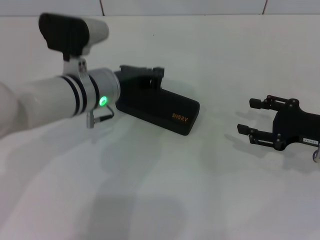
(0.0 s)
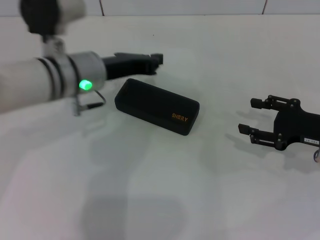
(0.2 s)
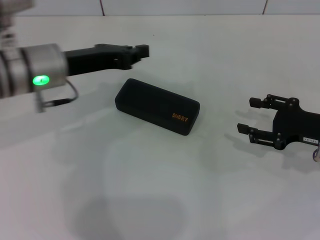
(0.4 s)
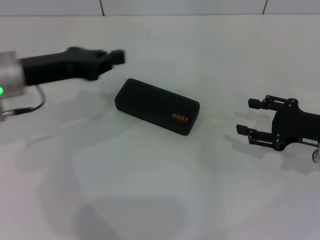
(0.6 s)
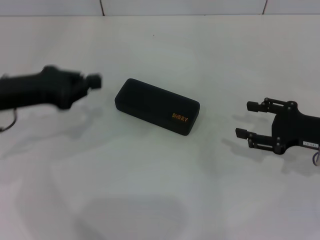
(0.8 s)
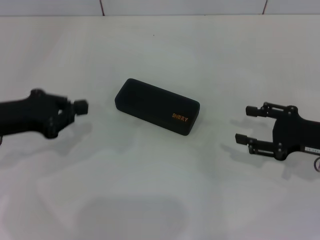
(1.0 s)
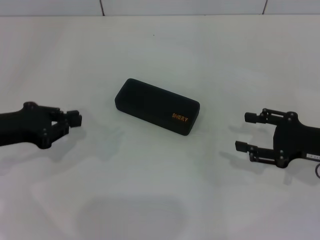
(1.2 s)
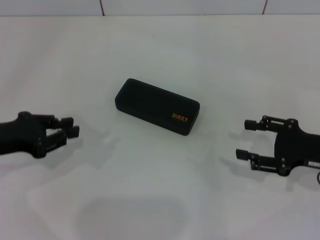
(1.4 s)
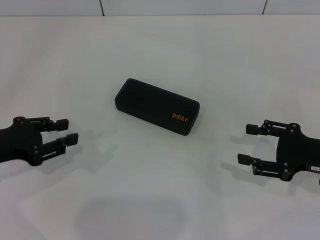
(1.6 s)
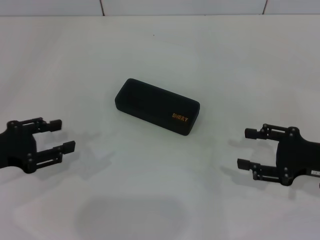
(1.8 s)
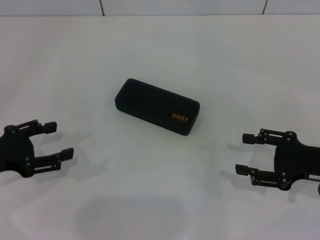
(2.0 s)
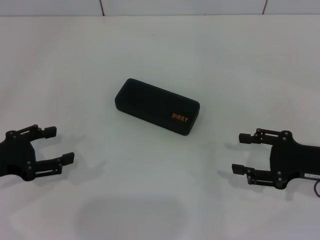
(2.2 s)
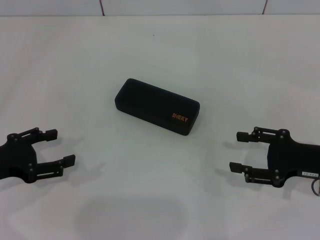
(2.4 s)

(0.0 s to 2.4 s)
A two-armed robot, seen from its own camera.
0.0 s - 1.2 s: The left gripper goes roughly 20 cm to the left and backward.
1.2 s - 2.4 s: The left gripper shifts by approximately 5 cm, and opens.

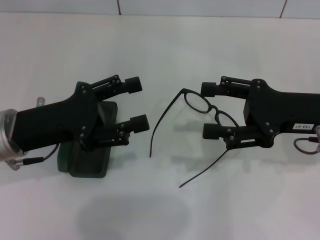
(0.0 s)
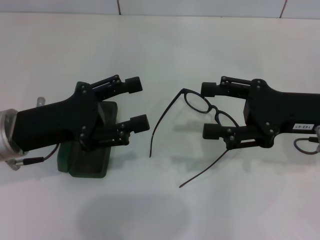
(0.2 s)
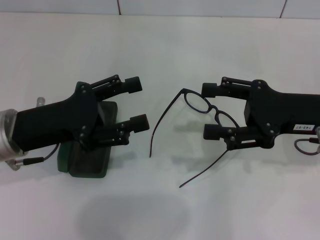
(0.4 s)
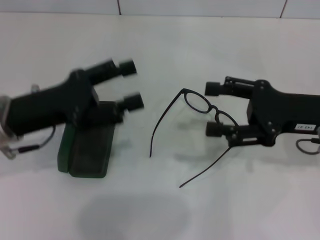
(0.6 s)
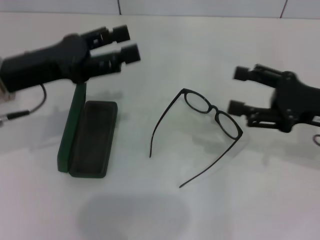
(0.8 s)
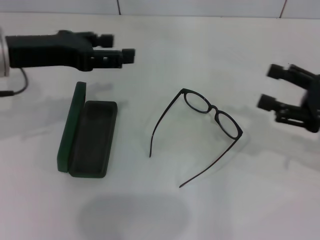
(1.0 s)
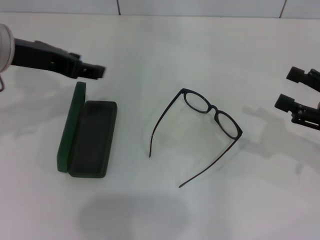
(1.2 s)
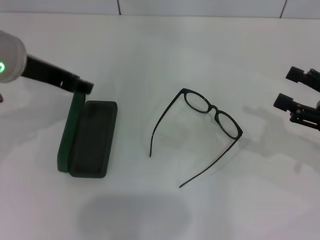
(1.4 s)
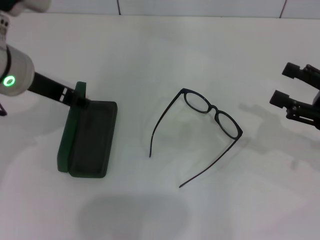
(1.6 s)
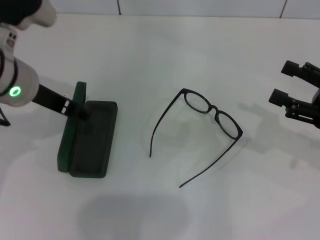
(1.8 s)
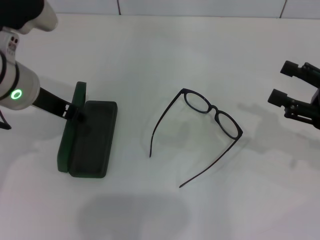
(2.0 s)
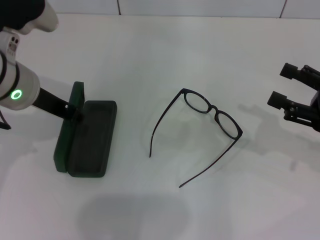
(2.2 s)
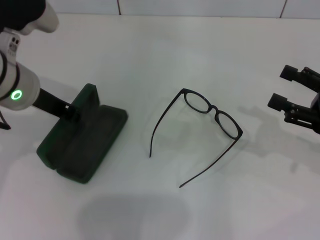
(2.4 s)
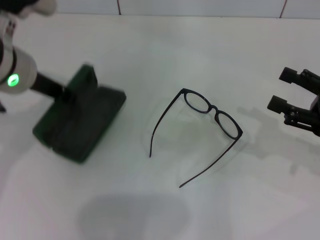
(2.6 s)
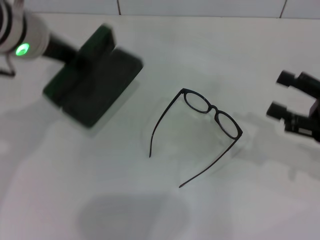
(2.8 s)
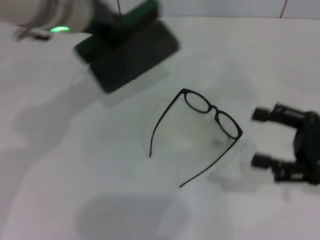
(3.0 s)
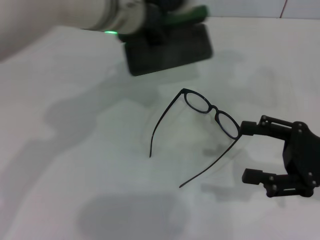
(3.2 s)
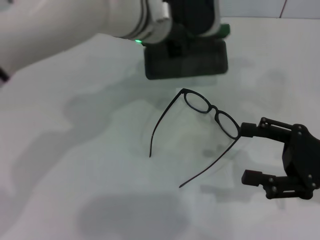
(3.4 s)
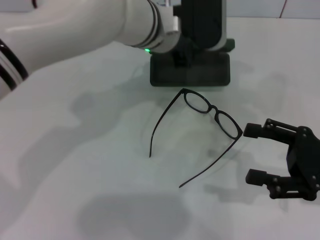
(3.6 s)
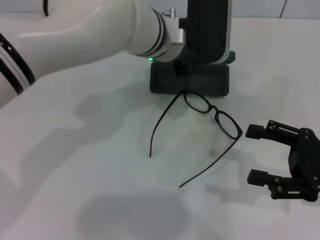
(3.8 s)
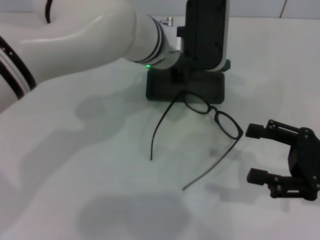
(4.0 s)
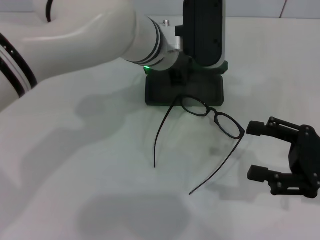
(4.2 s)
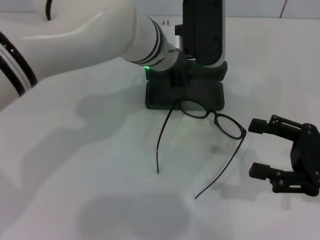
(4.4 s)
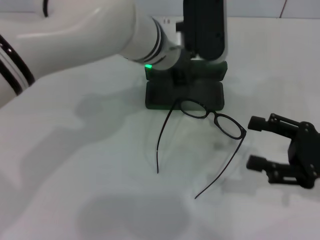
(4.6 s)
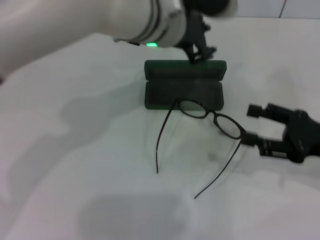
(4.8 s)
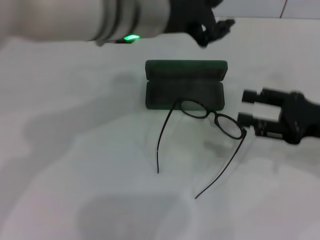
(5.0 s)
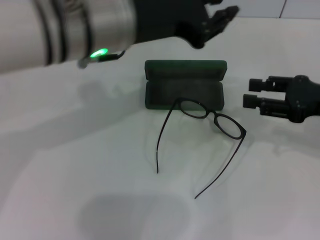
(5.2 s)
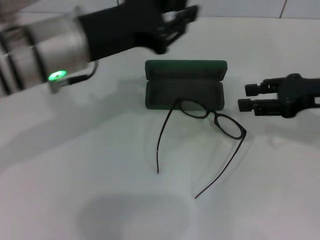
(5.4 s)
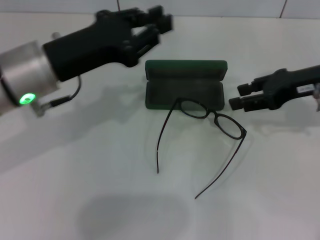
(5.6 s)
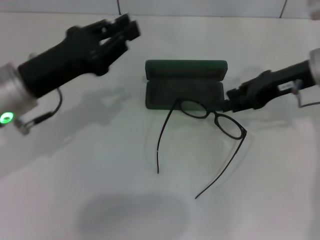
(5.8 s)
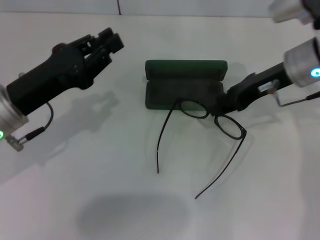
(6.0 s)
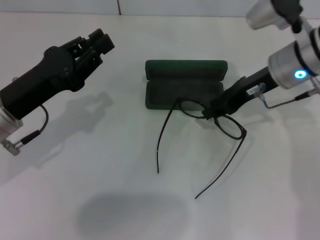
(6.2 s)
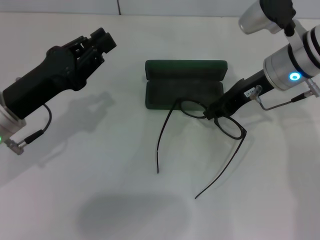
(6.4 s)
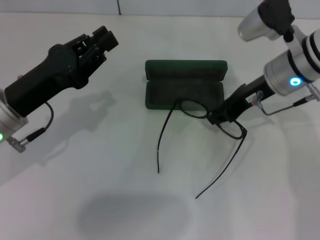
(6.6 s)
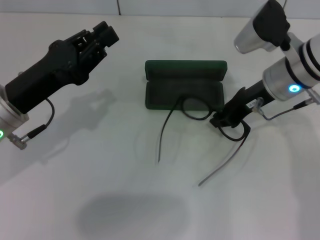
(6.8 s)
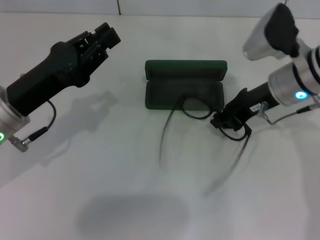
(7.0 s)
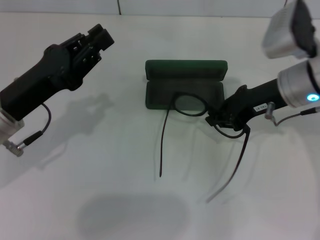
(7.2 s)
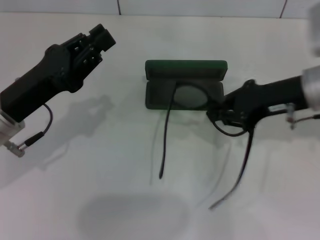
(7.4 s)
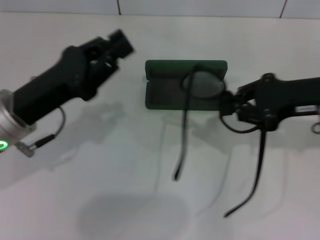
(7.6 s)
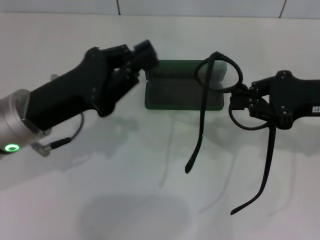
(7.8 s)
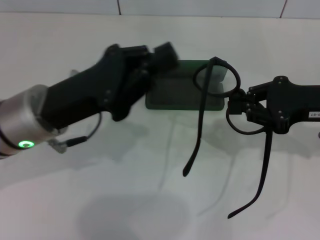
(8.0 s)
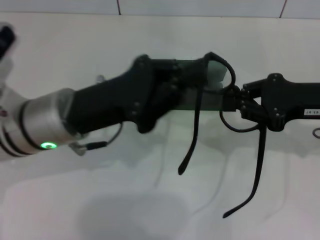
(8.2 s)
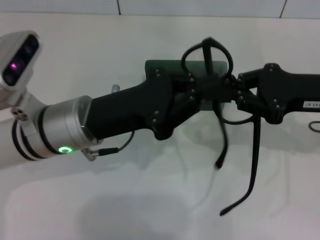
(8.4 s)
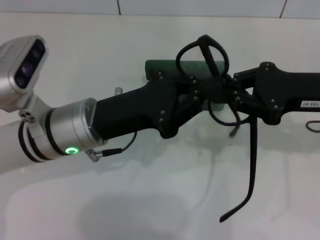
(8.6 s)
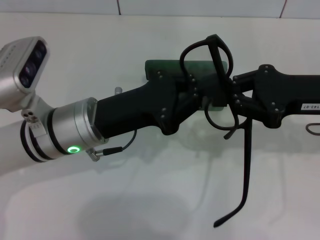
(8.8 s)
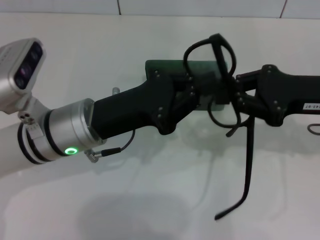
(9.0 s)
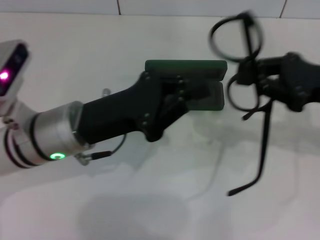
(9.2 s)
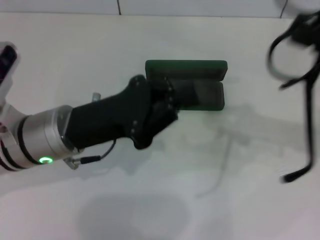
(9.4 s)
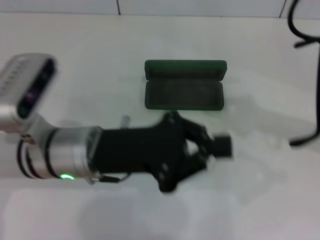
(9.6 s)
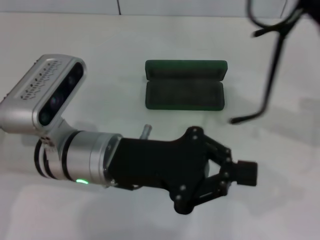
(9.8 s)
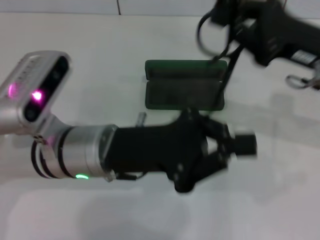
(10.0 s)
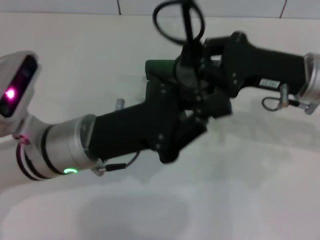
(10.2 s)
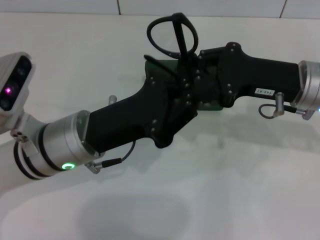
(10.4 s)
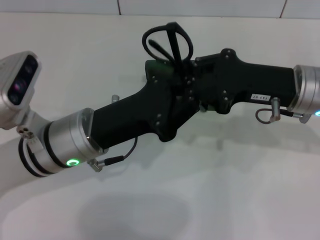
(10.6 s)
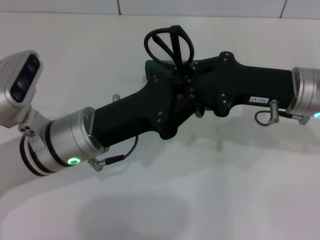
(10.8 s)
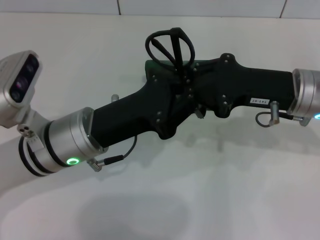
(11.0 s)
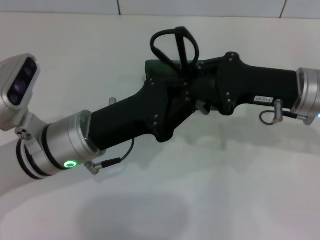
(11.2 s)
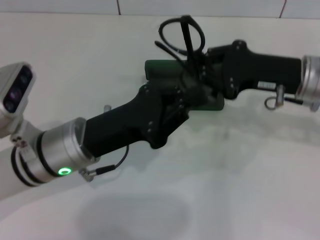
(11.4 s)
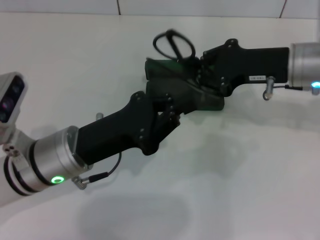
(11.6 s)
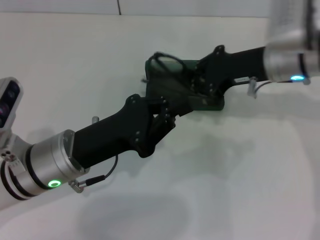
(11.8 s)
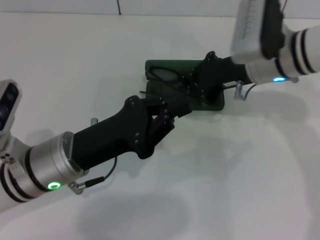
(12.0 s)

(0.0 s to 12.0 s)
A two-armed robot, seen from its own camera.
Step, 0.0 s - 2.4 s: Grab the glasses case with your left hand.
Step, 2.6 s - 4.4 s: Place the glasses case in the center of the table with your left hand.
Step, 4.6 s - 7.0 s: Grab the eyeglass frame with your right hand.
Step, 7.2 s - 11.0 s: Fold the frame with your left hand.
0.0 s - 1.6 s: The right gripper travels to the right by some 10 cm; the left gripper is displaced upward and forward by some 10 cm.
1.6 s - 3.0 s: The left gripper is displaced to the right by roughly 10 cm, and closes up.
3.0 s - 4.4 s: The left gripper goes about 10 cm to the right and downward.
4.4 s - 6.0 s: The right gripper is displaced forward, to the left and upward by roughly 20 cm, and closes its fingers; the left gripper goes roughly 25 cm to the left and backward.
6.0 s - 7.6 s: The right gripper travels backward and to the right by roughly 10 cm, and closes.
7.6 s - 9.0 s: The left gripper shifts about 10 cm to the right.
9.0 s - 10.4 s: The right gripper ends up about 5 cm from where it was.
10.4 s - 12.0 s: The right gripper travels forward and to the left by approximately 10 cm.

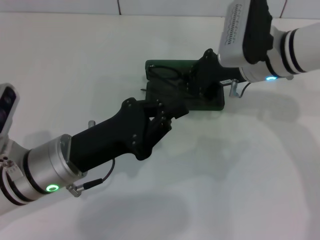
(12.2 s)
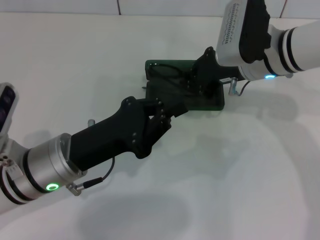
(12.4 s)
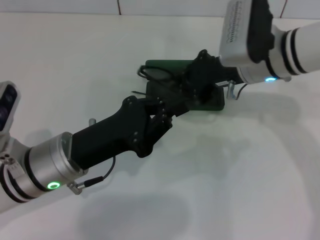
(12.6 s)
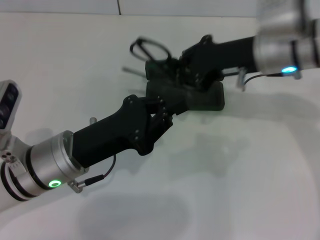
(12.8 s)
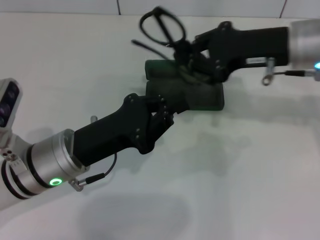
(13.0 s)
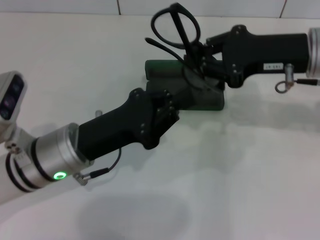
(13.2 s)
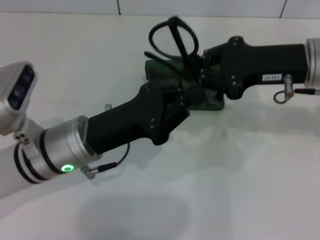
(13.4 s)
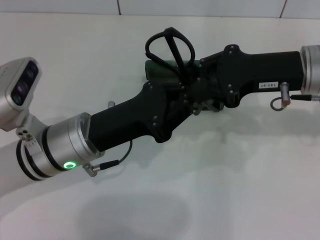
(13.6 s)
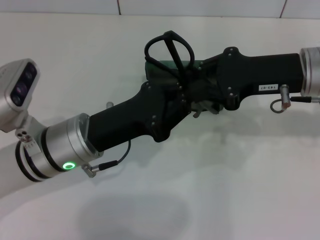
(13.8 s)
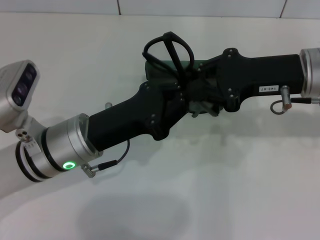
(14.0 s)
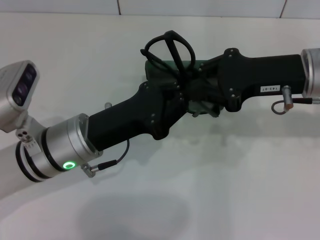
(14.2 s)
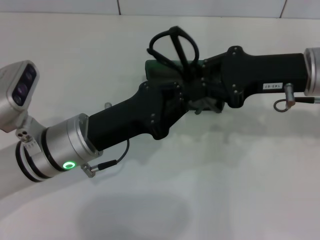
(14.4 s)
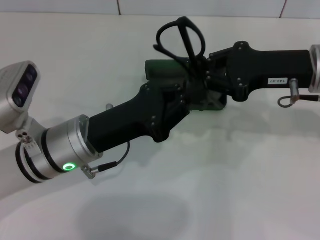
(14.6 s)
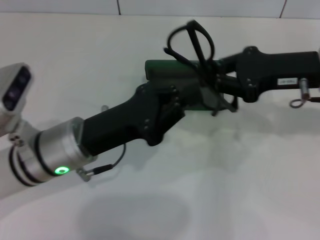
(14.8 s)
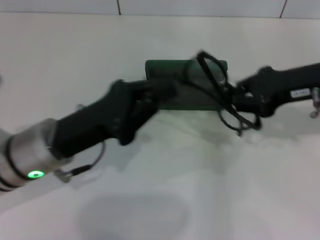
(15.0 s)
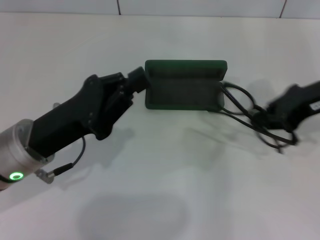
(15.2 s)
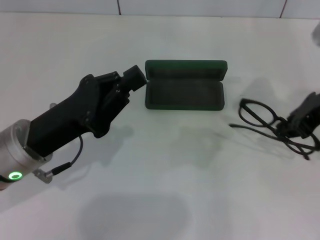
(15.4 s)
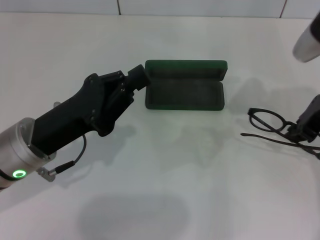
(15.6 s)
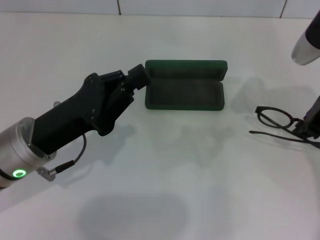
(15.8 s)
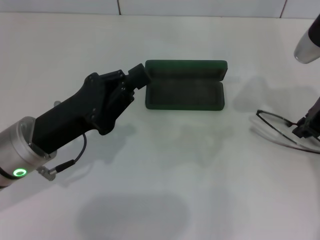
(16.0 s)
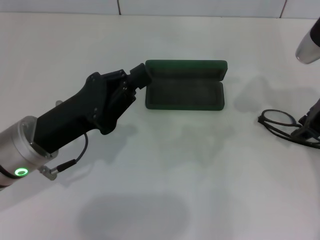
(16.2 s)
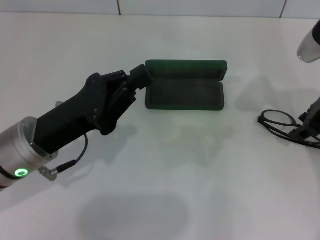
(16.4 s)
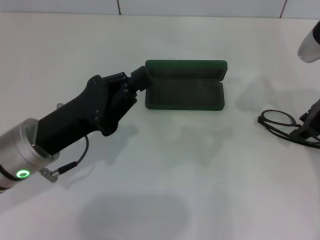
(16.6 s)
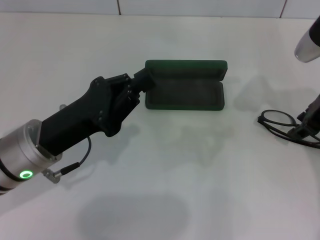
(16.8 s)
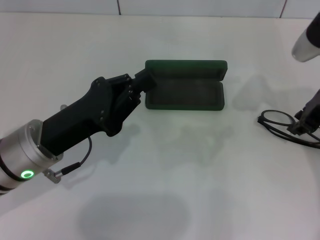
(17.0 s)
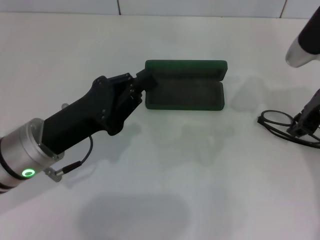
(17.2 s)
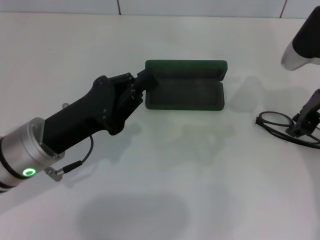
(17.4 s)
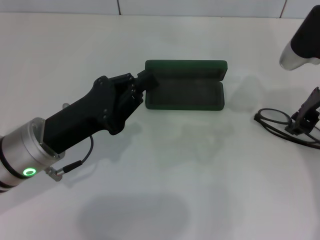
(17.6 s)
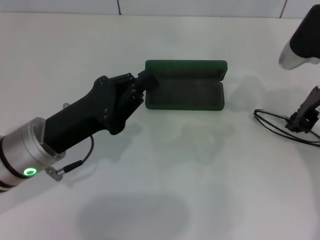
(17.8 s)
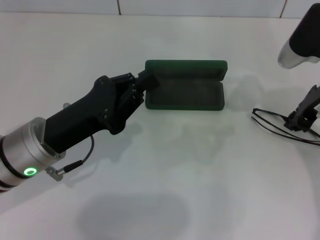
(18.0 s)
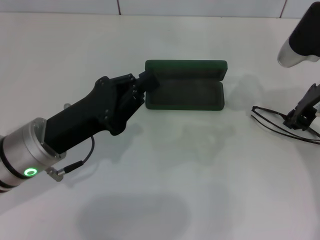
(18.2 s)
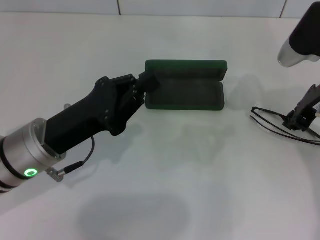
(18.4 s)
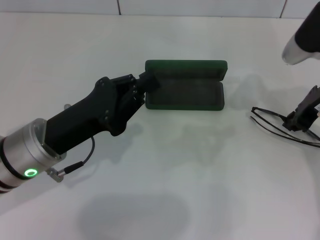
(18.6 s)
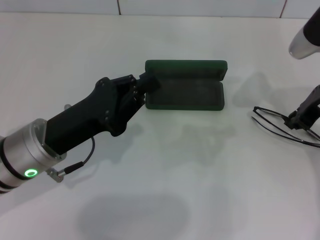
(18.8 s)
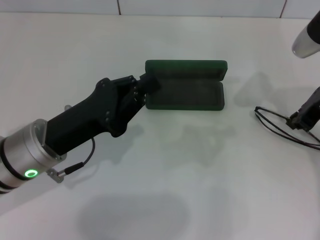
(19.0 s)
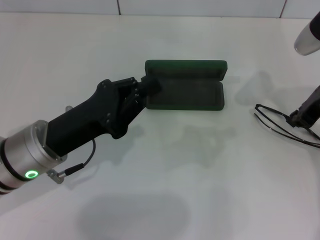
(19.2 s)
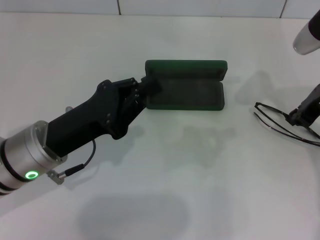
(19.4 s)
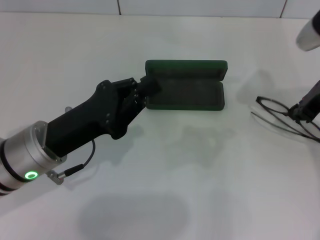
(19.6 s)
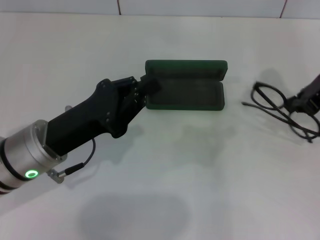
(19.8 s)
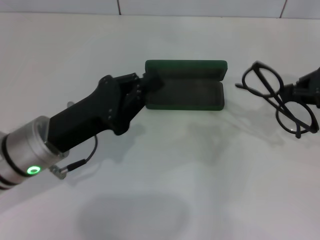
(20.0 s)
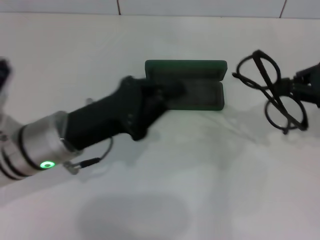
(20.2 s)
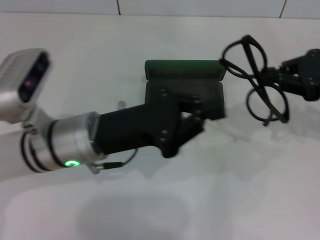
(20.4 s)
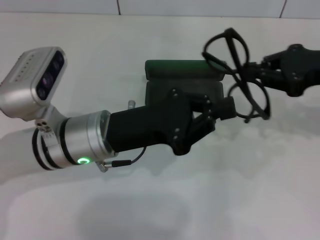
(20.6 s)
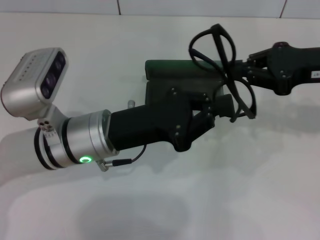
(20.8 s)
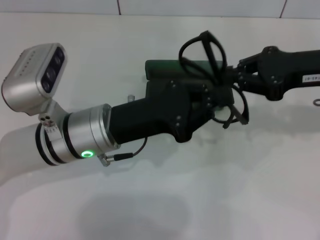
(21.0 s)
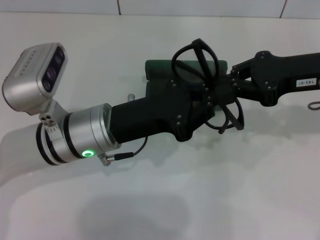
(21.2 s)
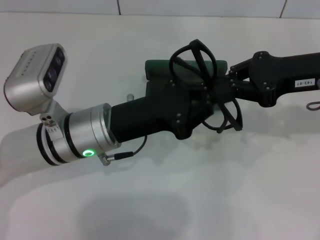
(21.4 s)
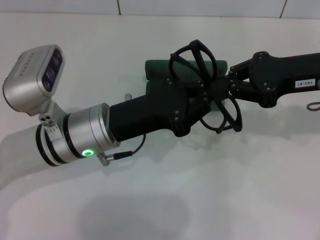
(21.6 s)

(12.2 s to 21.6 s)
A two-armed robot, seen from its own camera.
12.2 s - 13.8 s: The right gripper travels to the right and backward by about 10 cm.
13.8 s - 15.4 s: The left gripper is displaced to the left by roughly 5 cm.
15.4 s - 18.4 s: The grippers make only small movements.
18.4 s - 20.0 s: The right gripper shifts approximately 5 cm to the right.
20.0 s - 21.6 s: The right gripper travels to the left by about 5 cm. The left gripper goes about 5 cm to the right.
